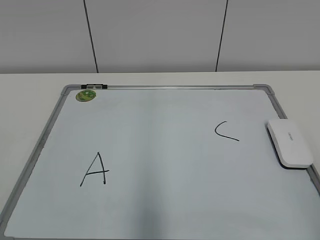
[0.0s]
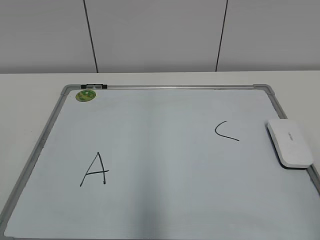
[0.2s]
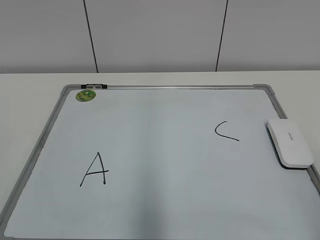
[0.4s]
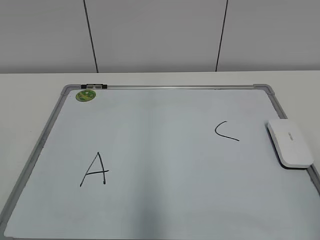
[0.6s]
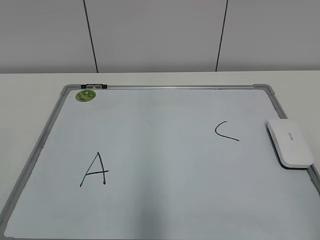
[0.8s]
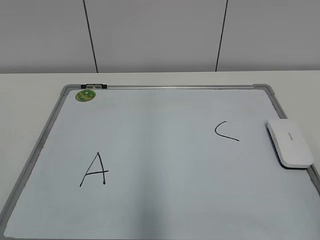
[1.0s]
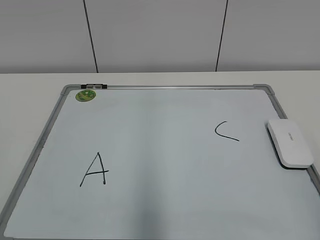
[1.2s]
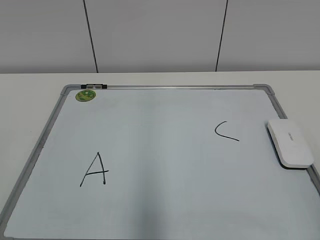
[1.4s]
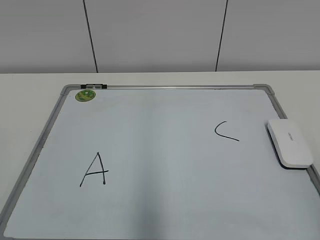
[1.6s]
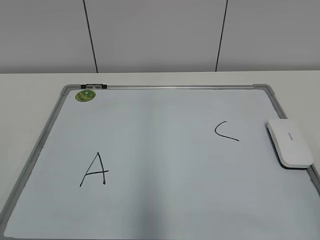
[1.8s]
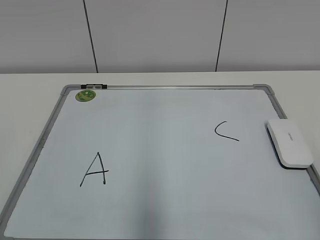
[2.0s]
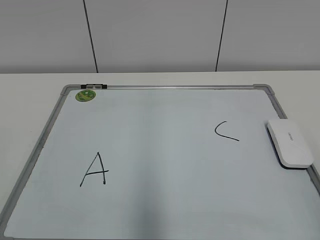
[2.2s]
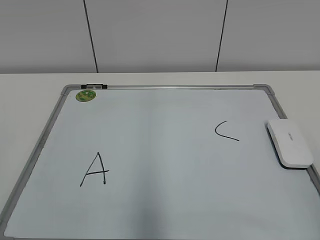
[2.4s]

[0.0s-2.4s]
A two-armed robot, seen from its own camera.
Task of the whole recording: pick up the eraser on the blackboard and erase the letter "B".
1.2s to 2.4s: The two grippers keep their place.

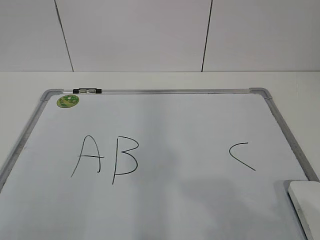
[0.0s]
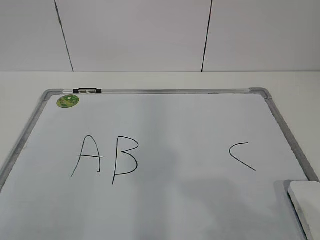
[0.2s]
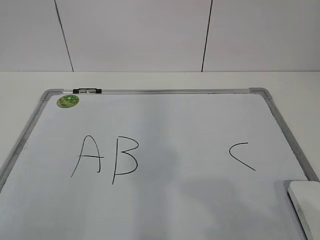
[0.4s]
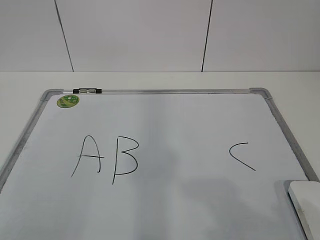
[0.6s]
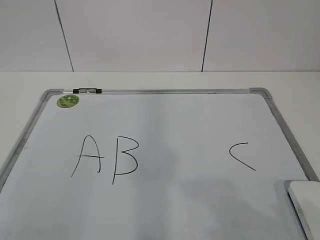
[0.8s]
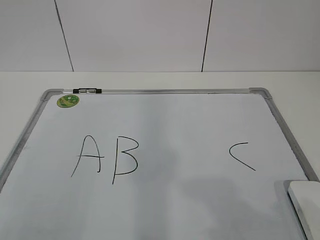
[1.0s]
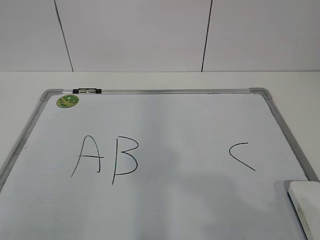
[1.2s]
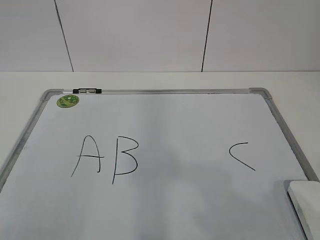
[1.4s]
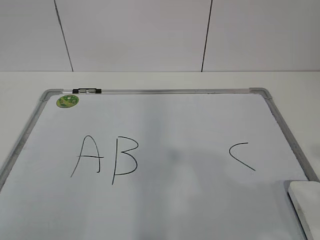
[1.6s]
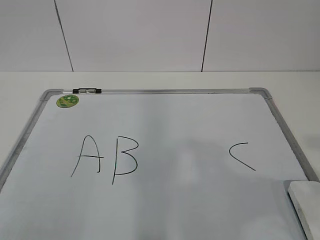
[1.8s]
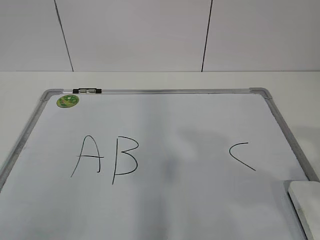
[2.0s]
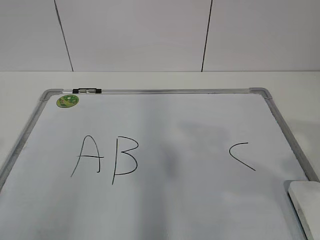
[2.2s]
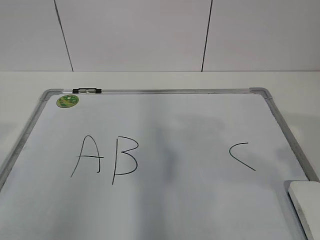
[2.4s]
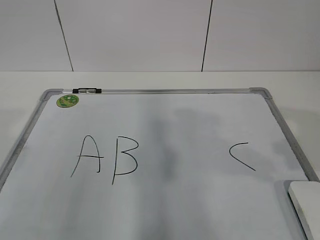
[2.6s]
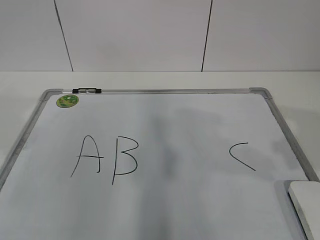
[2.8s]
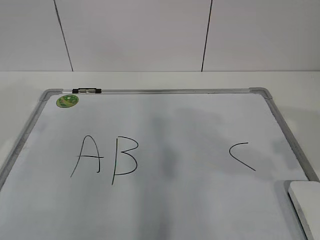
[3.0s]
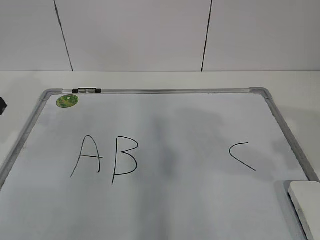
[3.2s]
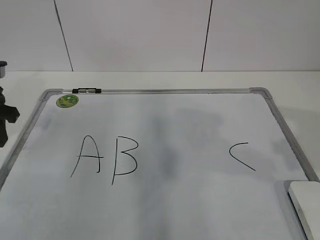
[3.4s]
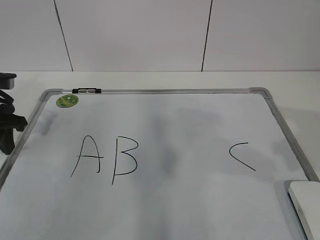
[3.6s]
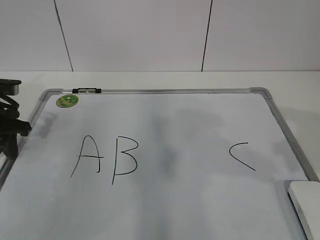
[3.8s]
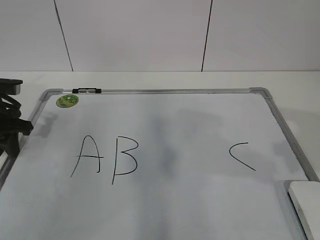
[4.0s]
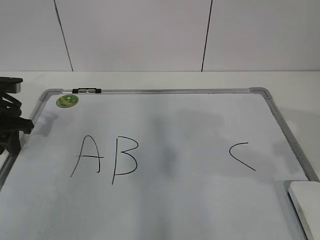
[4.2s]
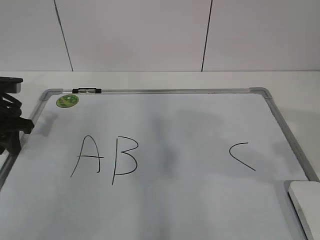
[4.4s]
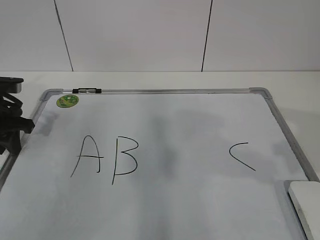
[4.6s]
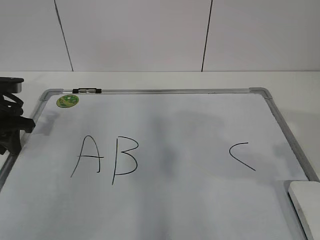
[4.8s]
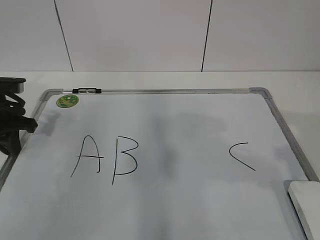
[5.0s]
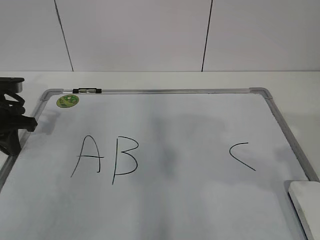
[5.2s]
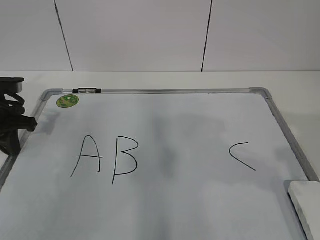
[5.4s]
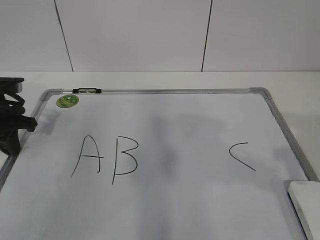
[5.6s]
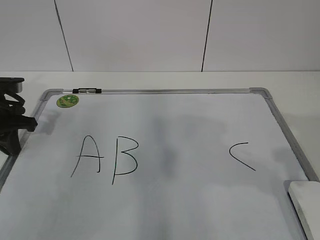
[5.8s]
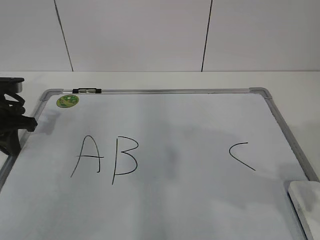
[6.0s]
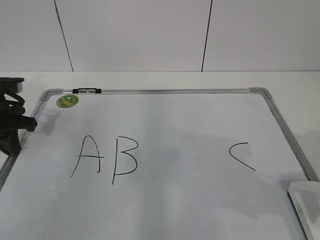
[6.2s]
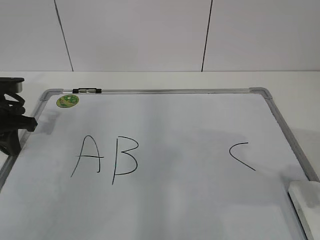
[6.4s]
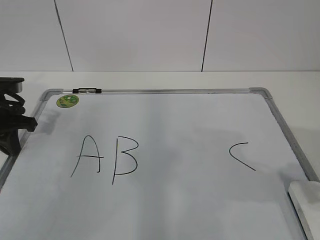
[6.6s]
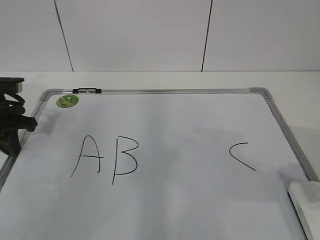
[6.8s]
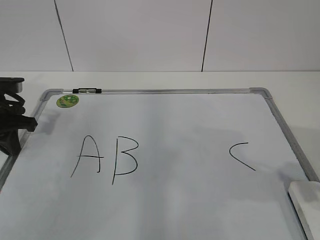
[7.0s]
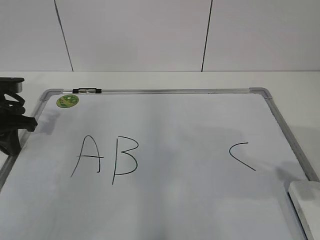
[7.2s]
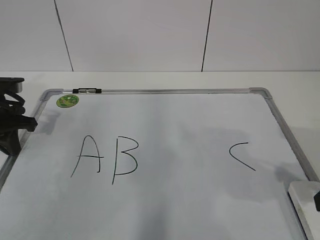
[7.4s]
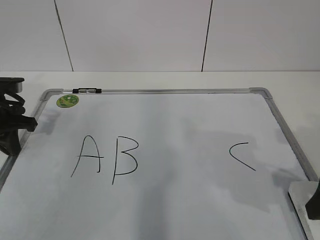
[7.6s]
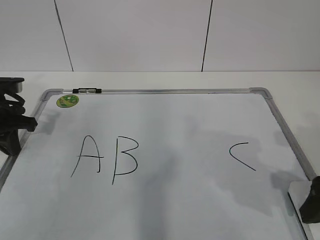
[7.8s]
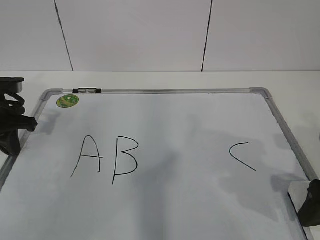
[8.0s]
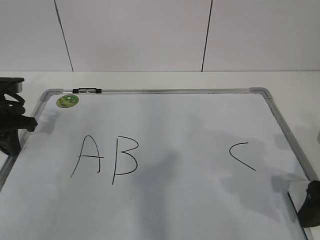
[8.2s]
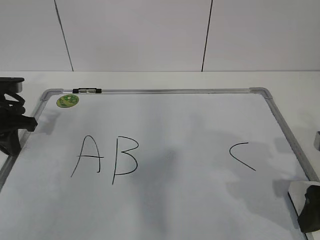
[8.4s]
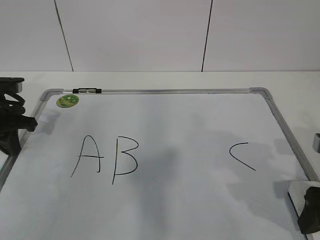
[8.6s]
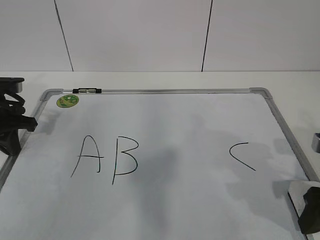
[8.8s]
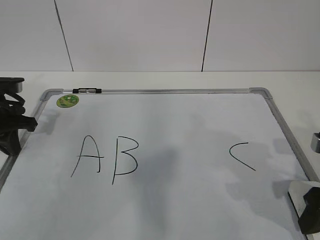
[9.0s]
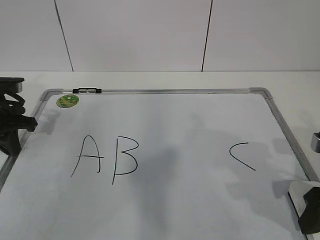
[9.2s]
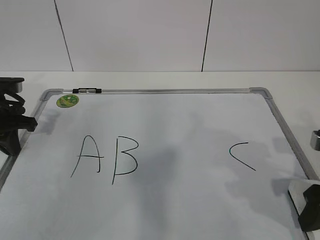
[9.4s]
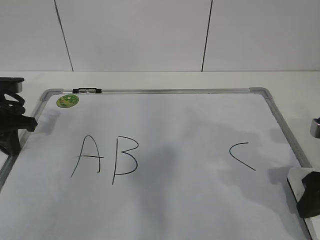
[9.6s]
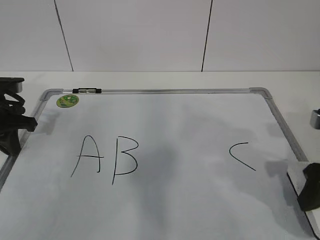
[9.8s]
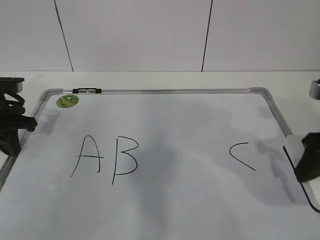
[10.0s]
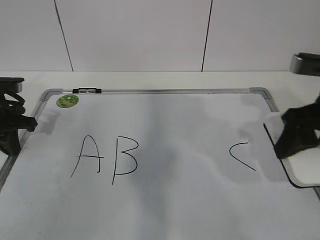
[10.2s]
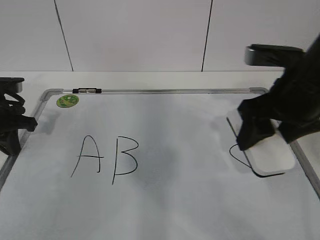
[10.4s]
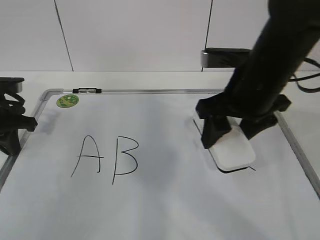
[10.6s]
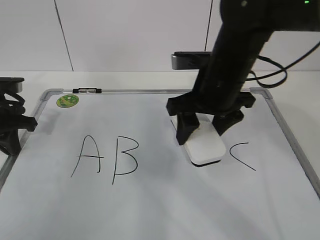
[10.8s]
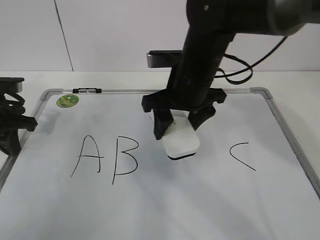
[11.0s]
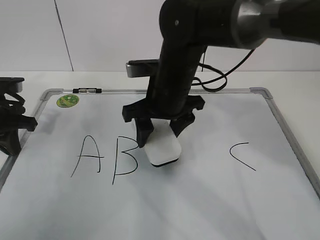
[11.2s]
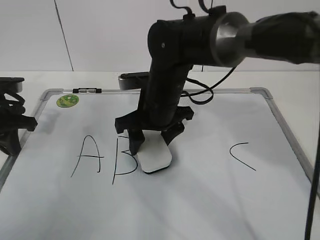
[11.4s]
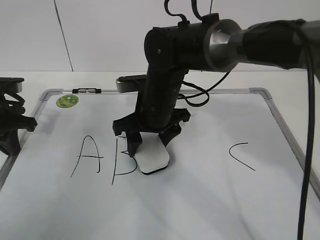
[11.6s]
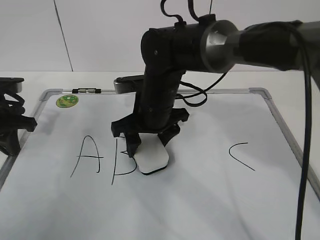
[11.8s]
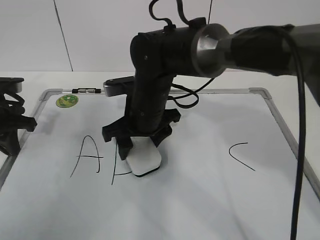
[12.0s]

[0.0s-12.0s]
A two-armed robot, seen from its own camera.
Task of the whole recording: pick up the eraser on the blackboard and erase the letter "B".
Step, 0.0s to 4.2s: Hold the drawing board steady with your left hand.
1.6s to 3.0s: The left gripper is displaced forward by approximately 25 cm; the right gripper goes roughly 15 cm forward.
3.0s to 4.4s: The left gripper goes approximately 15 cm downward and forward.
4.4s to 6.0s: The left gripper closes up.
7.6s to 9.0s: The right gripper closes.
9.0s to 10.4s: The right gripper heads upward, to the left and forward, covering some 15 cm.
10.4s to 12.0s: The right gripper moves to the left and downward, some 20 cm.

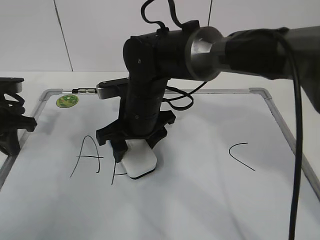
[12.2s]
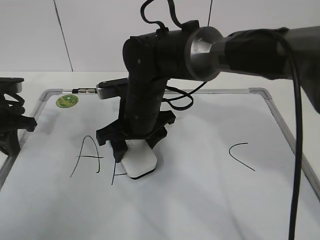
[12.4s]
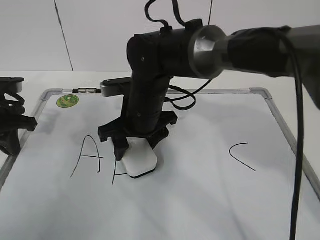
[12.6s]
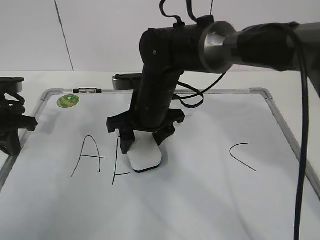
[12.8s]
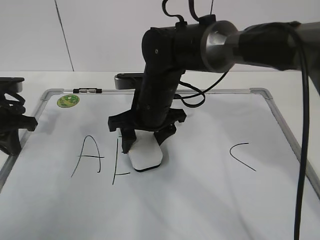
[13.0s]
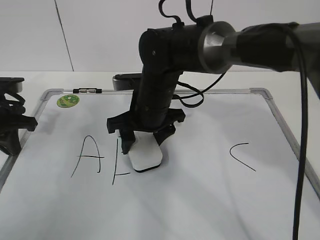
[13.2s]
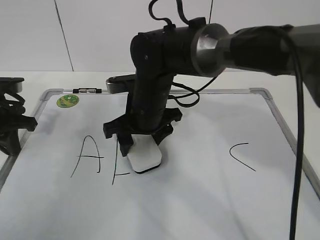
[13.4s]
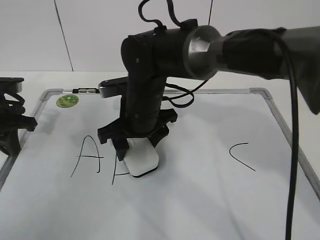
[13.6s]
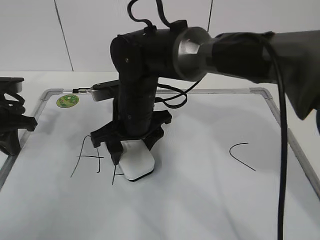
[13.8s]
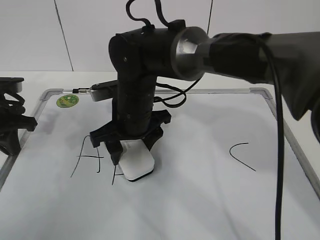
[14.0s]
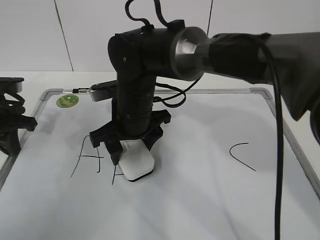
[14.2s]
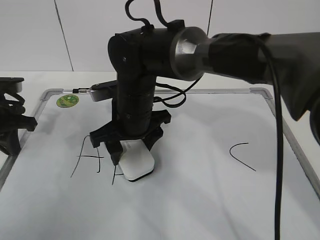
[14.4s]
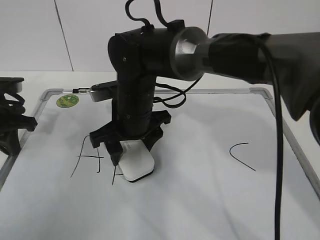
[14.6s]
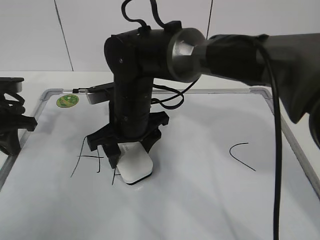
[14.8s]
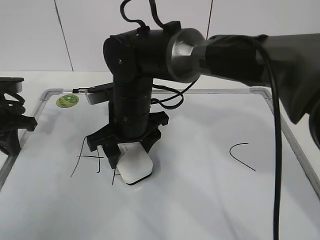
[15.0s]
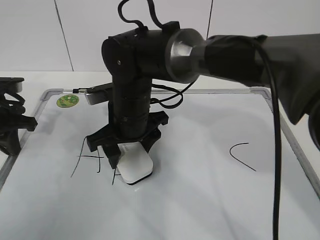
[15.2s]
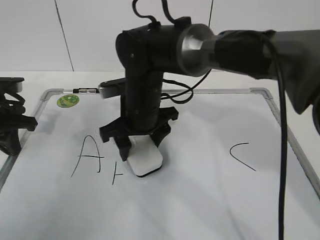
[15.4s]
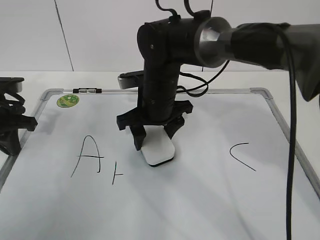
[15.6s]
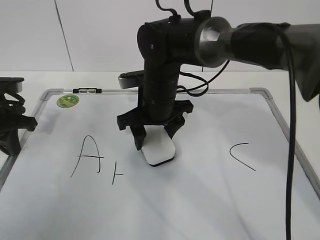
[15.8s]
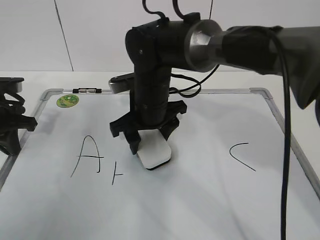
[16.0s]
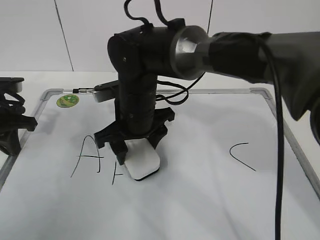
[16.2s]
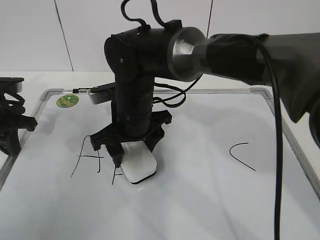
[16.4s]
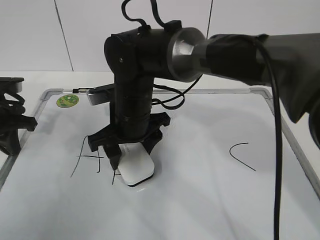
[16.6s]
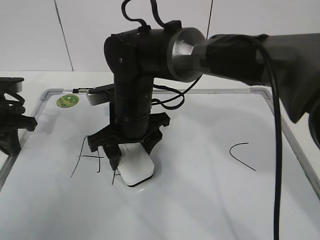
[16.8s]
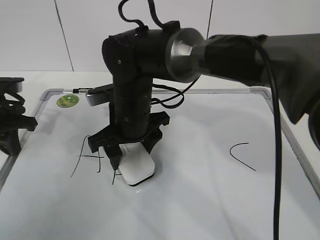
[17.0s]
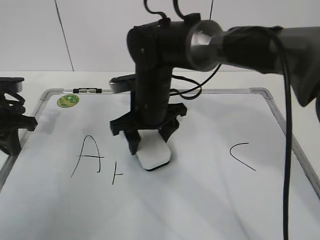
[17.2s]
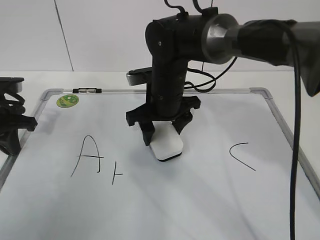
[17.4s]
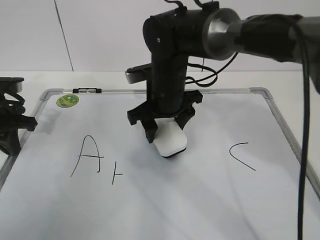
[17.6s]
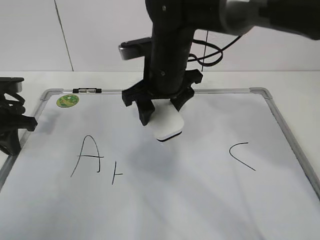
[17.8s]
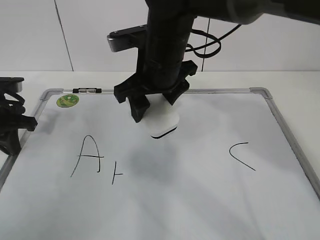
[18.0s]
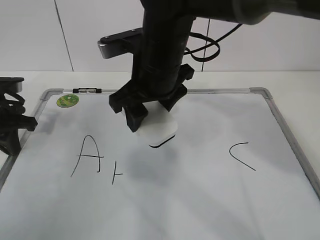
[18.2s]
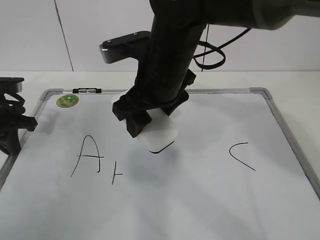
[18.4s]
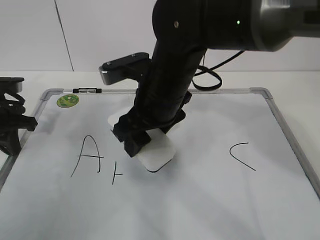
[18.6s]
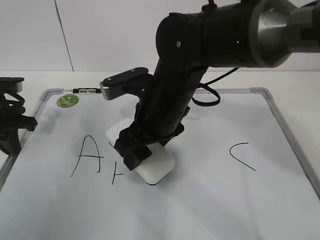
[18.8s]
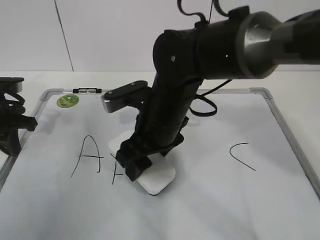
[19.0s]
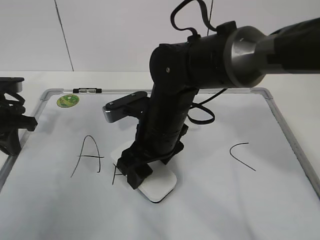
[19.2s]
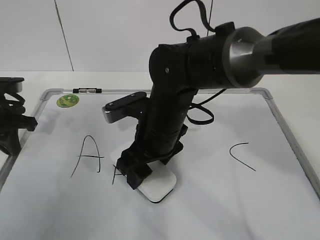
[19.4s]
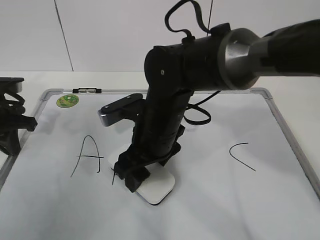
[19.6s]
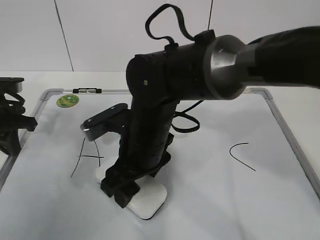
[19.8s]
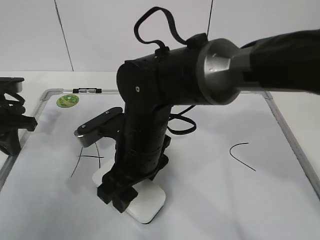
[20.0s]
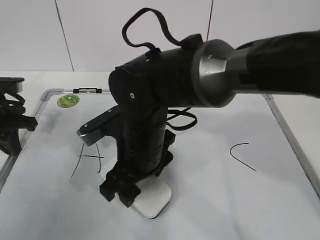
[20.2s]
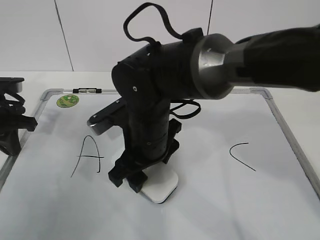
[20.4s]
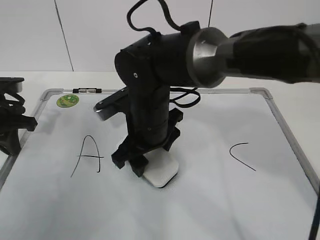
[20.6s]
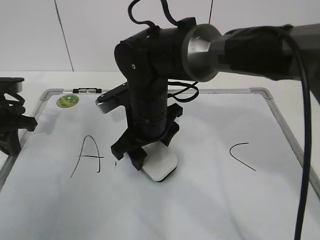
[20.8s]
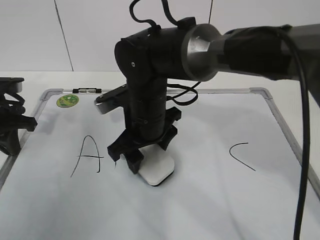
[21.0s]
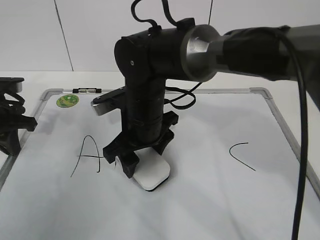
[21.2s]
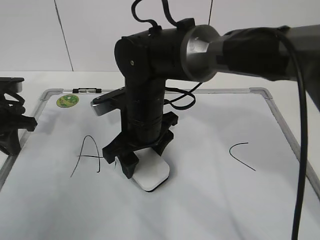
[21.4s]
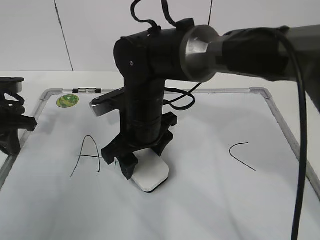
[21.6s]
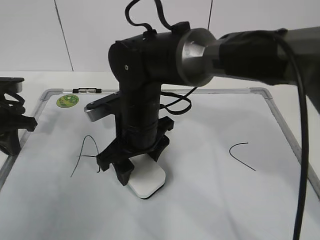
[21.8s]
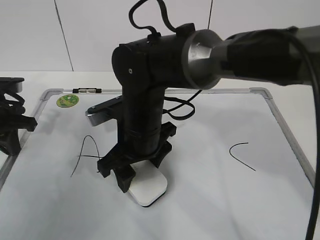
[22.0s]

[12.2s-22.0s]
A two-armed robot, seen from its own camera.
Task of the whole recording: pick up the eraser on the blackboard and erase the letter "B".
Step, 12.2s to 20.4s: Erase the letter B with your right hand.
12.2s to 15.0s: The grippers move only a little.
16.4s to 17.8s: The right gripper moves to the right and upward, roughly 10 cm.
17.8s to 19.2s: The right gripper travels backward and downward by about 10 cm.
19.2s to 22.0s: The grippers stay close to where they were, moving slightly.
